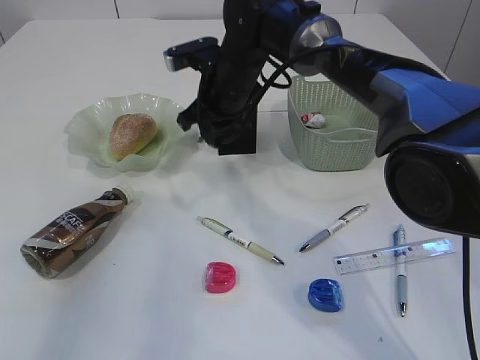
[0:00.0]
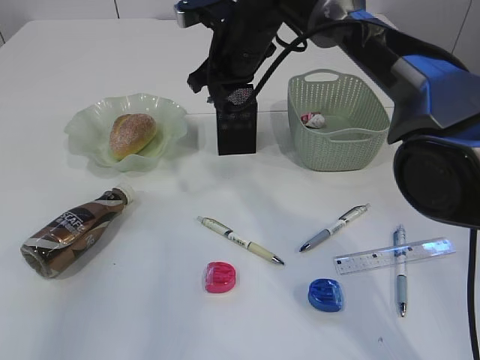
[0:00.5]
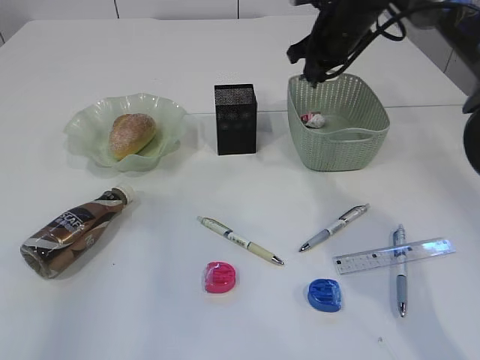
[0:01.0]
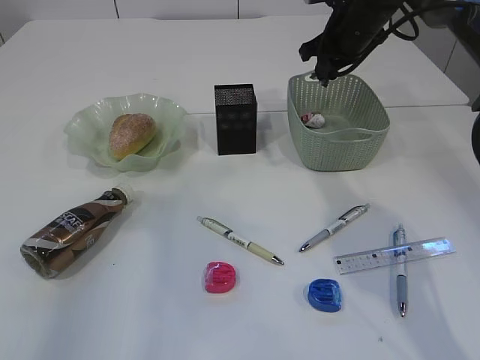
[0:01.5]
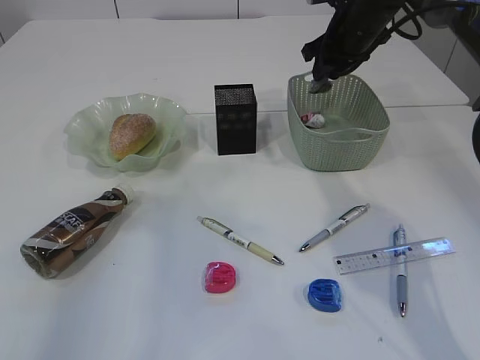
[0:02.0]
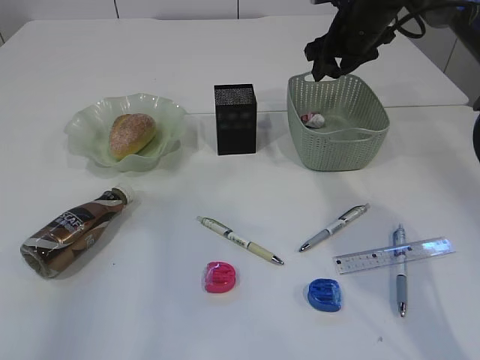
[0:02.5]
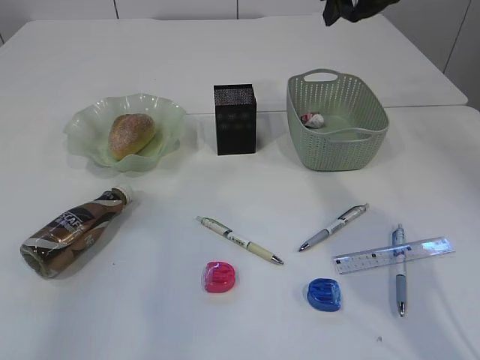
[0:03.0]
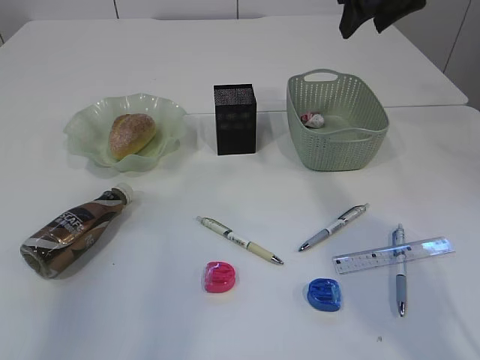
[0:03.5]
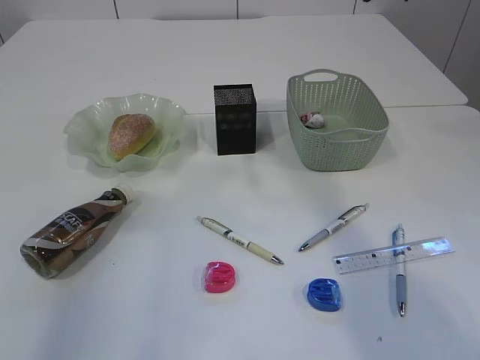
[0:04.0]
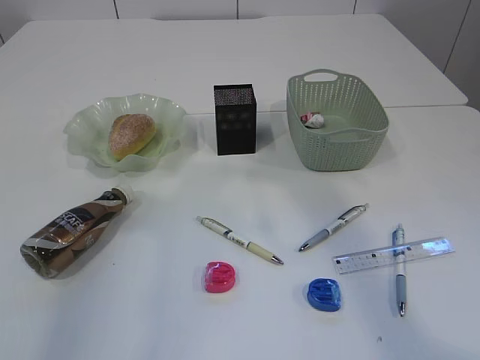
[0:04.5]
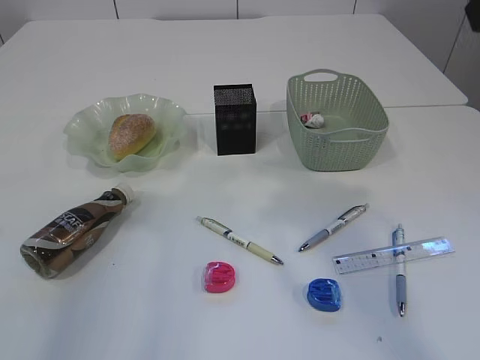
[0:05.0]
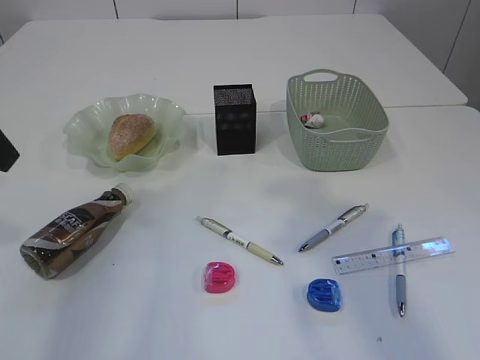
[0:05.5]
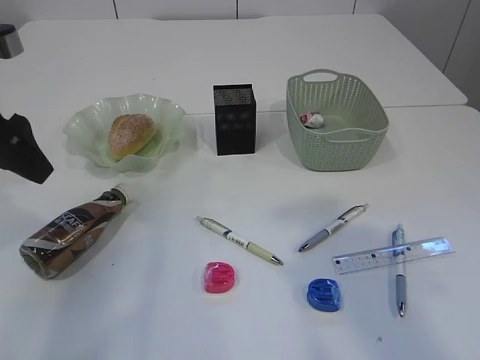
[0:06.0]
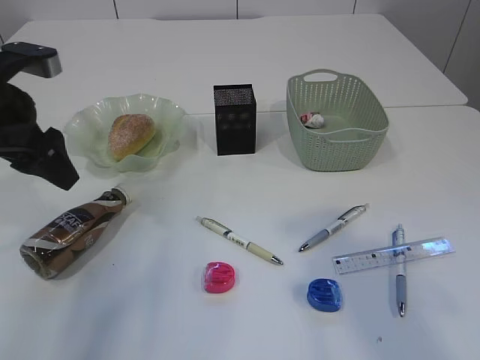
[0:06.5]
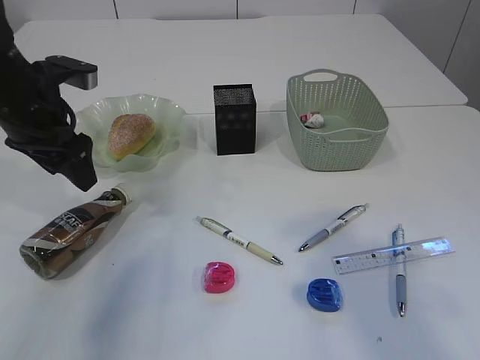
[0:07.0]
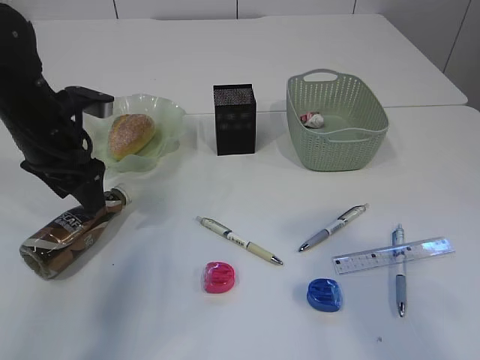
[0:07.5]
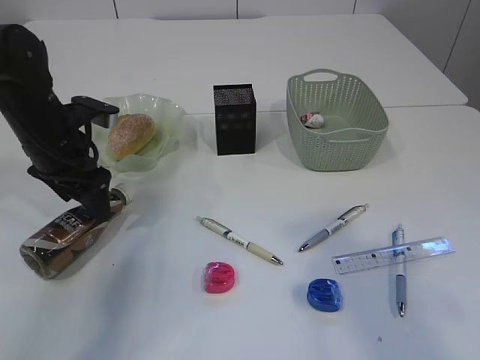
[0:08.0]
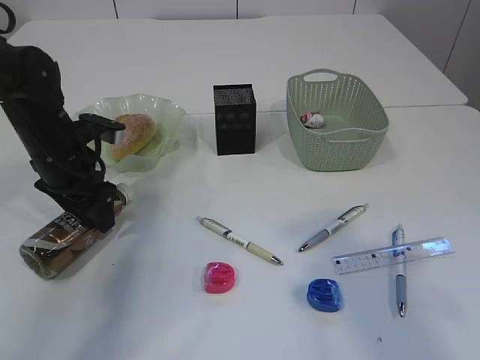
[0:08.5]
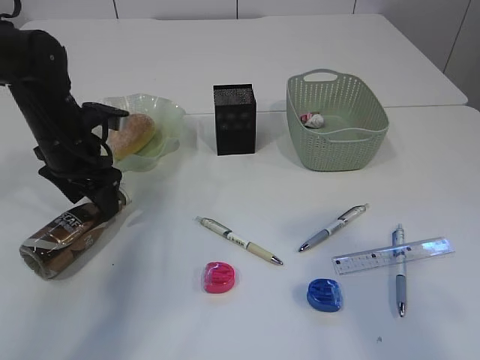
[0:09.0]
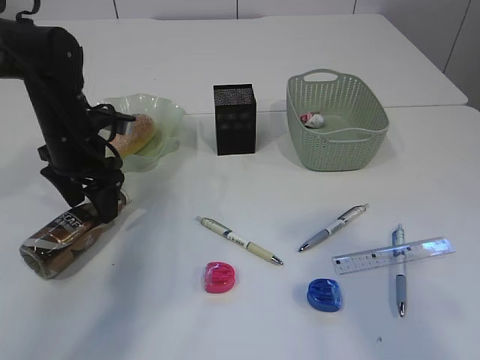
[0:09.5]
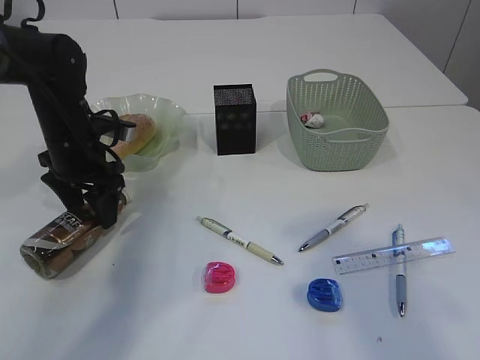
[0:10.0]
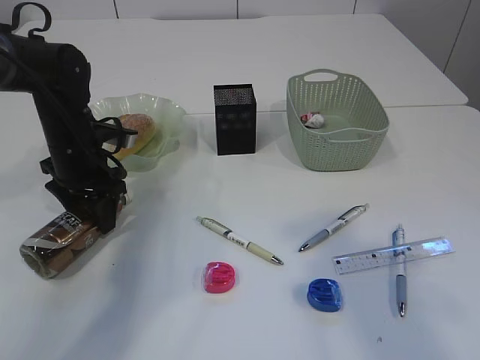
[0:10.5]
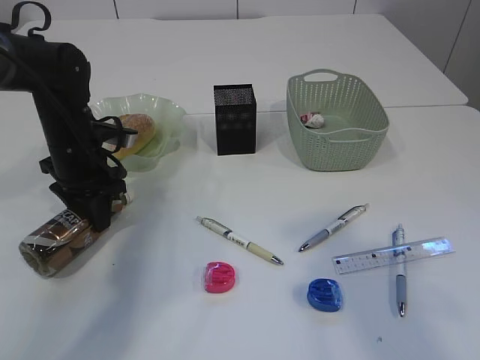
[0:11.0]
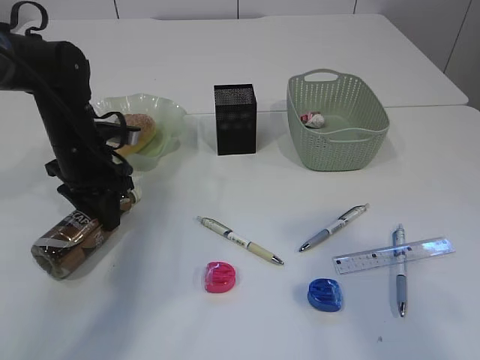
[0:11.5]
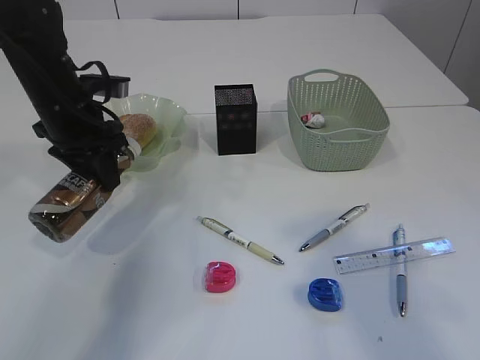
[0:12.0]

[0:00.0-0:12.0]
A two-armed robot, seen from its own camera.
Step, 0:00.0 to 0:02.5: Place the waste paper in the basket.
0:00.0 to 0:02.0: The right gripper goes approximately 20 cm to the right, and opens its fingers.
0:02.0 to 0:04.0: The right gripper heads upward and backward, covering some 20 cm, and opens.
0:04.0 to 0:06.0: The left gripper moves downward and forward, some 15 cm.
0:06.0 to 0:08.0: The left gripper goes some 15 cm downward and forward.
0:08.0 to 0:10.0: There are only small adjustments of the grippers.
0:10.0 to 0:12.0: The left gripper travels upward by some 5 cm, and closes.

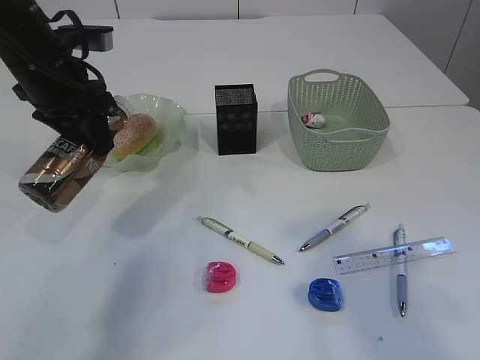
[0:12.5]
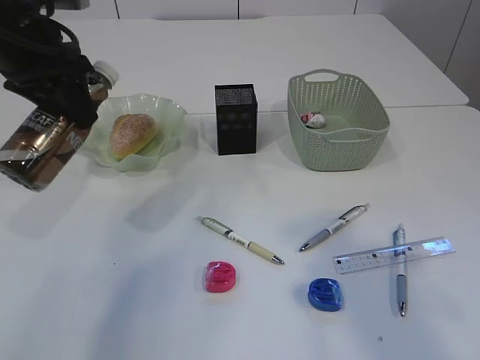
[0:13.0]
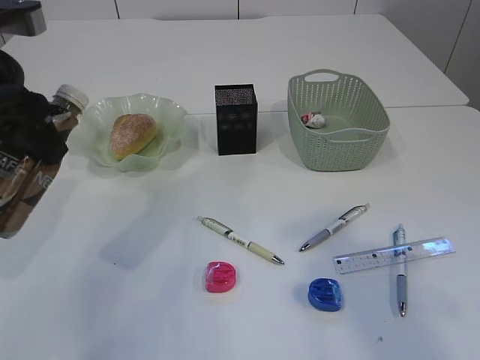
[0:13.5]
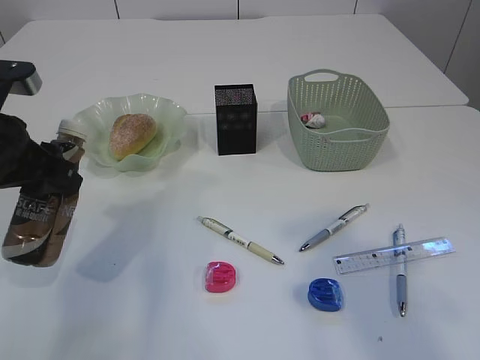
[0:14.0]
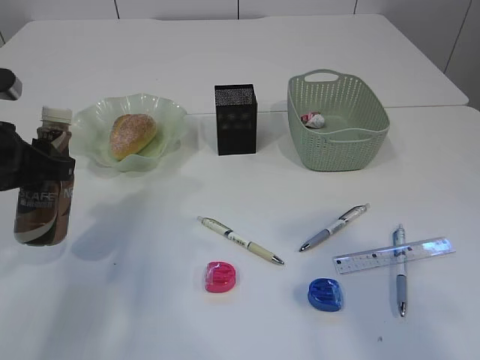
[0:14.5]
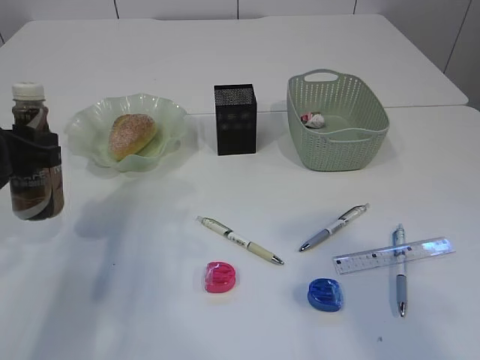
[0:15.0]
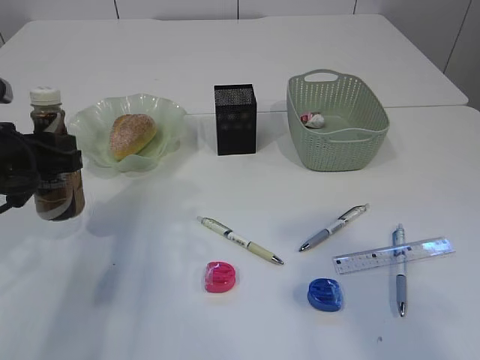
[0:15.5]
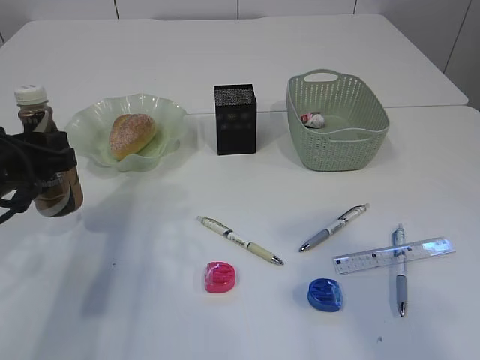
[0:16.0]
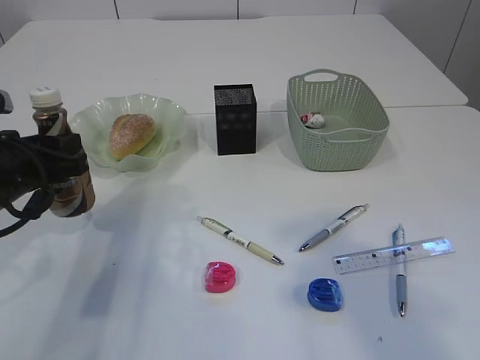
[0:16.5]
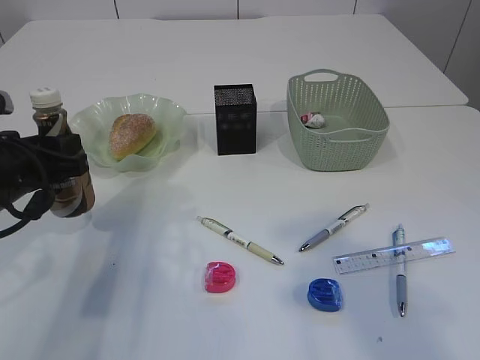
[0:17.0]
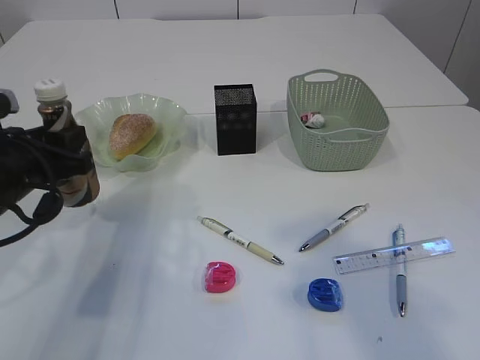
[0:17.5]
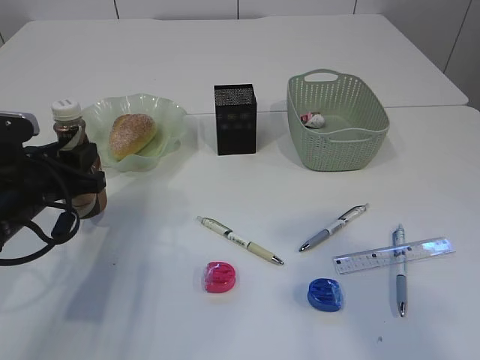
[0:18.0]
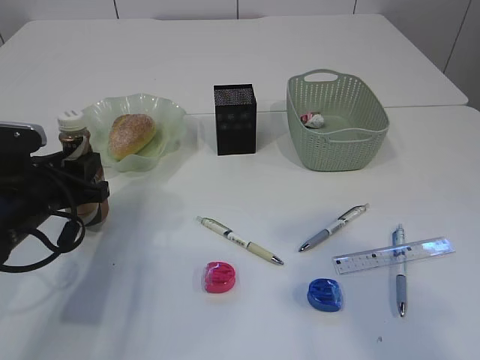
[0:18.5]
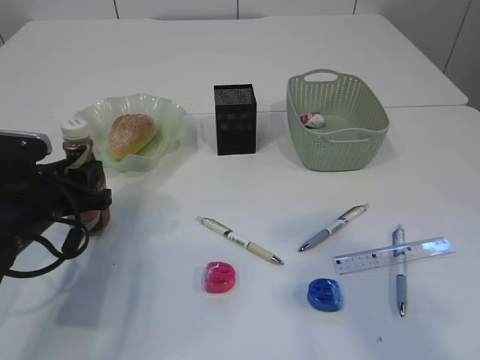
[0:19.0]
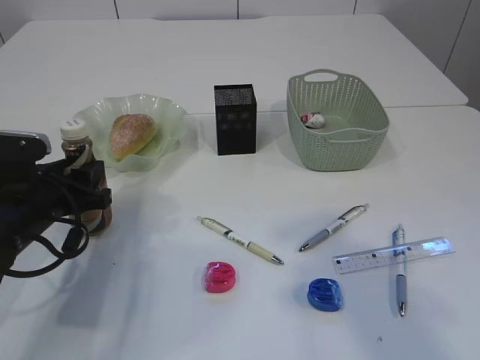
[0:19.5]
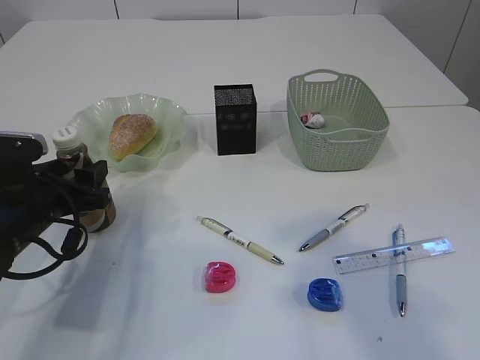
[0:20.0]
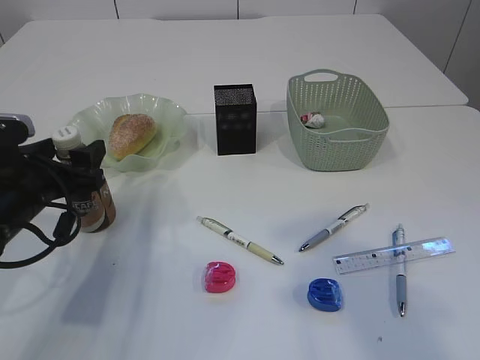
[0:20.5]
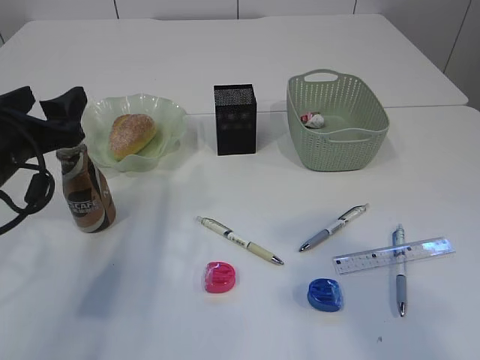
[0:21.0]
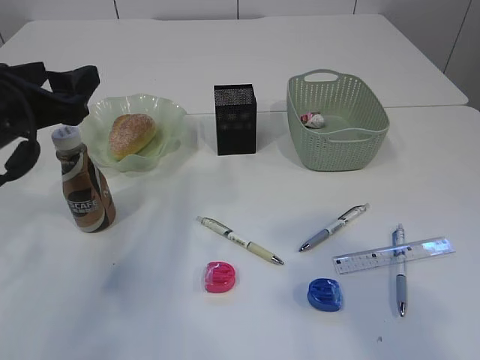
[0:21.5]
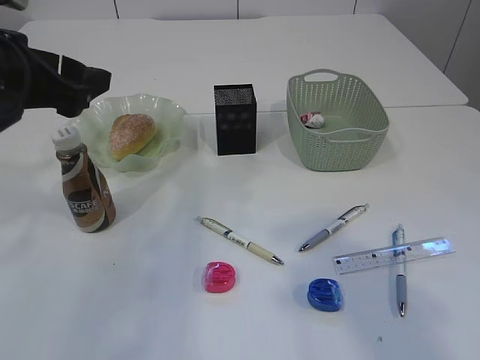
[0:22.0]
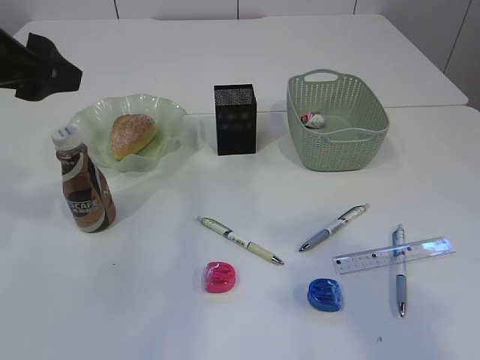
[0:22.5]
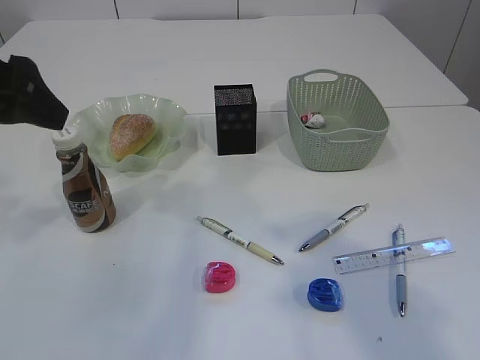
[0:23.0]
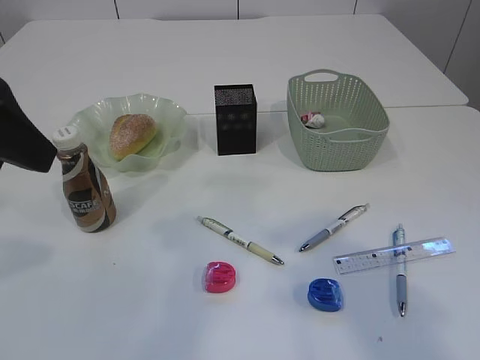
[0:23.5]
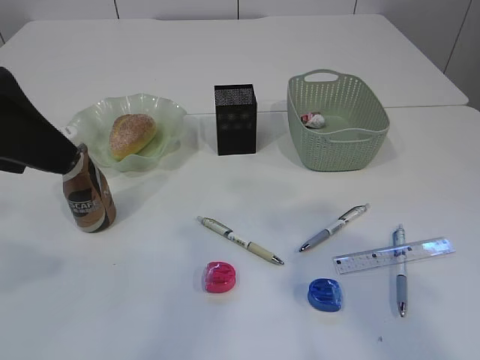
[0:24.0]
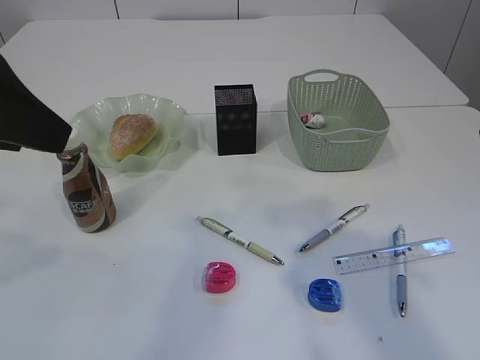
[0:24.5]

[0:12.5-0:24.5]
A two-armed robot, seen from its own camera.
Step, 0:12.5 to 0:21.0: Place the bottle.
0:12.5 to 0:14.5: The left gripper is displaced backward by about 10 cm.
0:16.5 to 0:18.5: The left gripper shifts by roughly 5 cm.
0:18.5 to 0:20.5: The left gripper opens its fingers.
0:20.5 to 0:22.5: The left gripper goes about 20 cm upward.
0:22.5 to 0:24.5: The left gripper shifts about 10 cm backward.

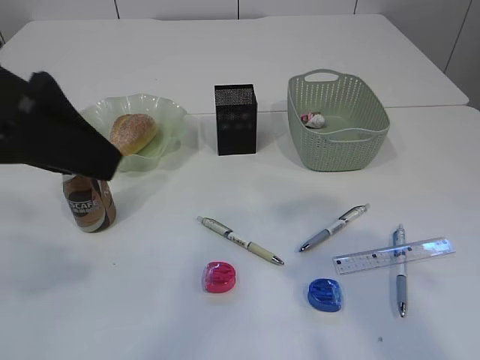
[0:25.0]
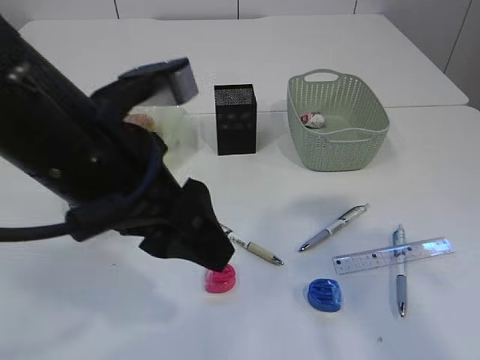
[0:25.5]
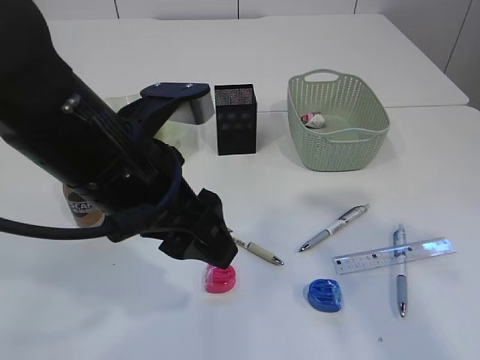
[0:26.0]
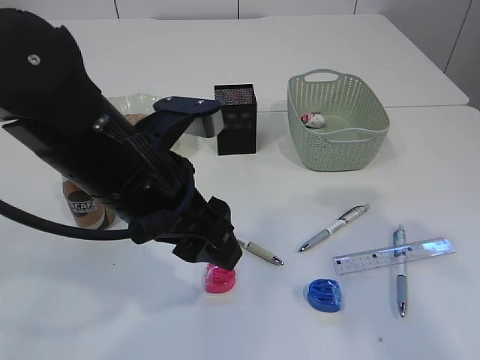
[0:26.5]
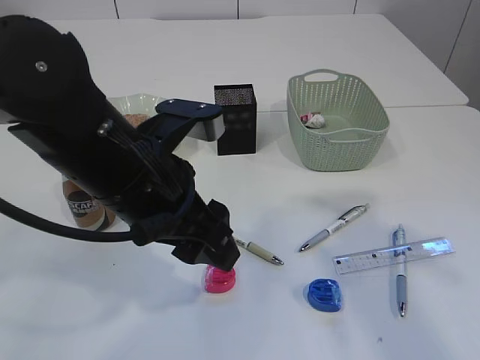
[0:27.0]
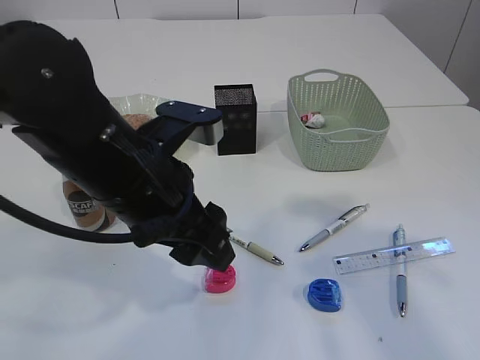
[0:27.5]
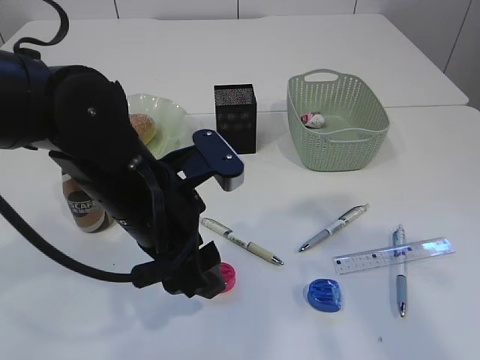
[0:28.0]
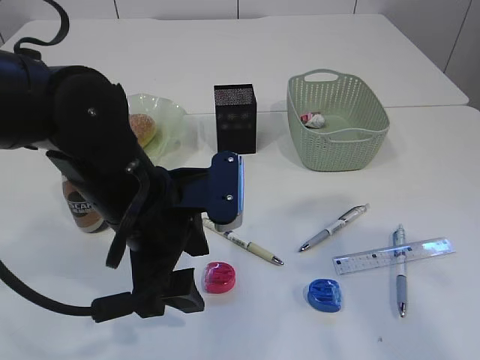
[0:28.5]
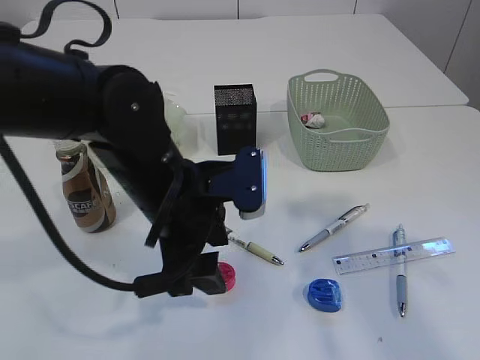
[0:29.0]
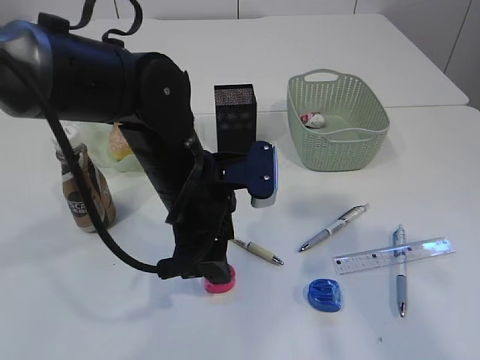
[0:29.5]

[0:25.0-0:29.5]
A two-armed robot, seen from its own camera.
0:25.0 to 0:27.0: The left gripper moves downward and to the right, approximately 15 cm.
0:27.0 to 0:29.5: The left gripper travels forward and downward by some 10 cm.
